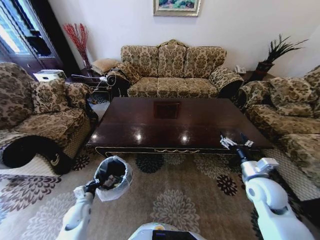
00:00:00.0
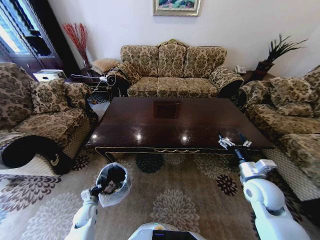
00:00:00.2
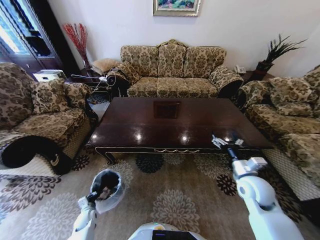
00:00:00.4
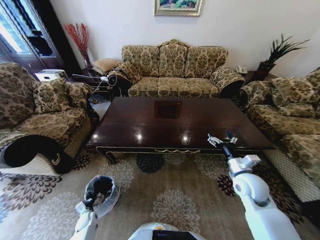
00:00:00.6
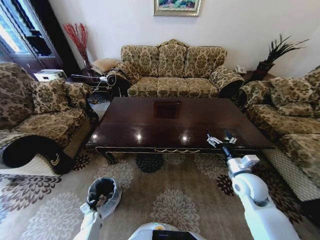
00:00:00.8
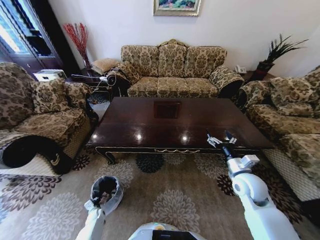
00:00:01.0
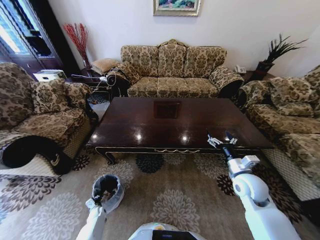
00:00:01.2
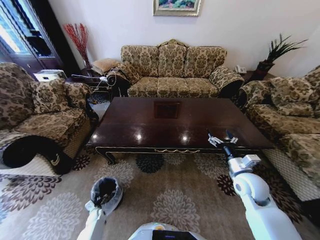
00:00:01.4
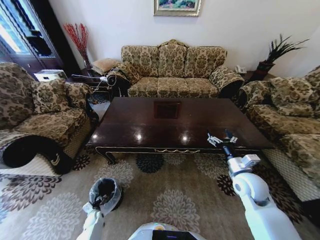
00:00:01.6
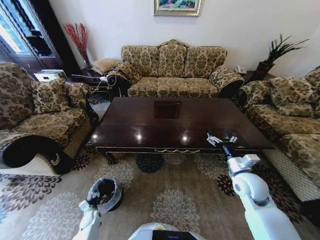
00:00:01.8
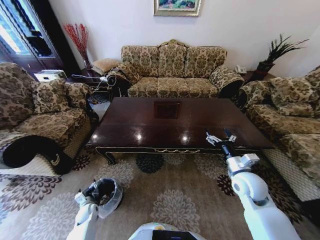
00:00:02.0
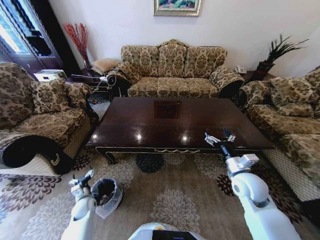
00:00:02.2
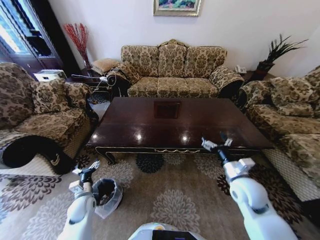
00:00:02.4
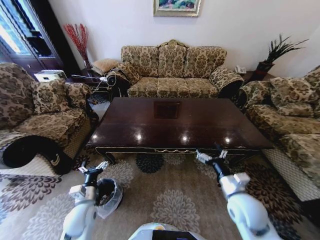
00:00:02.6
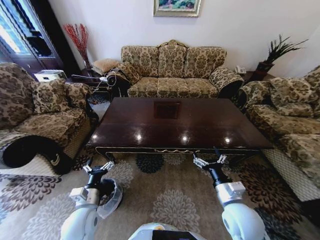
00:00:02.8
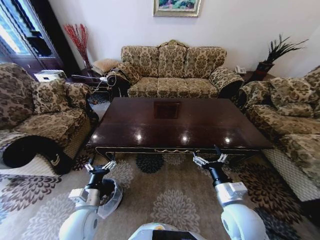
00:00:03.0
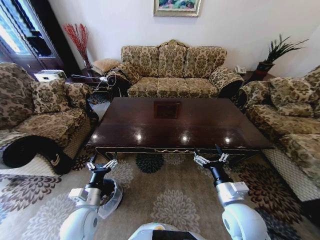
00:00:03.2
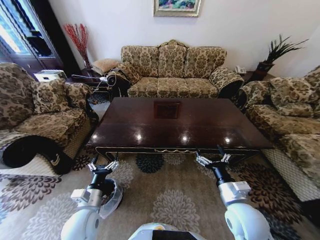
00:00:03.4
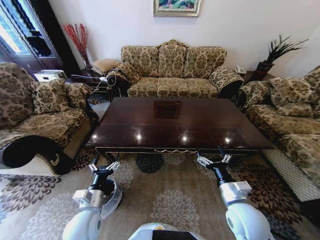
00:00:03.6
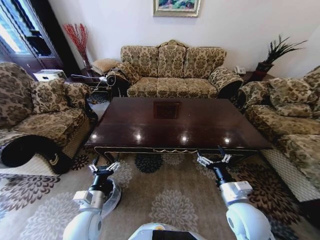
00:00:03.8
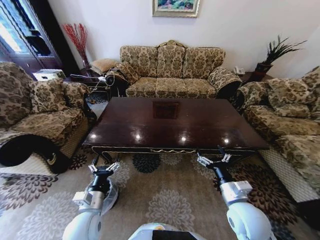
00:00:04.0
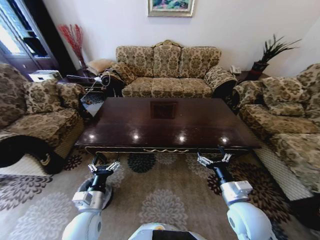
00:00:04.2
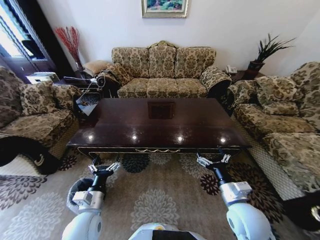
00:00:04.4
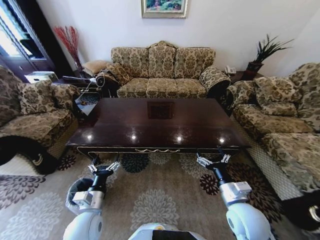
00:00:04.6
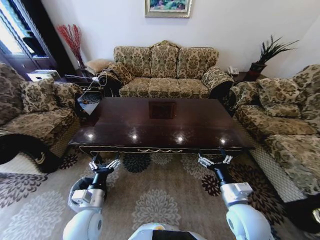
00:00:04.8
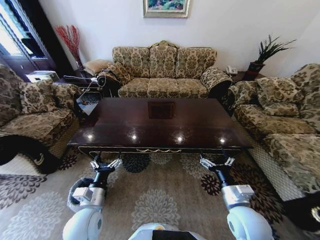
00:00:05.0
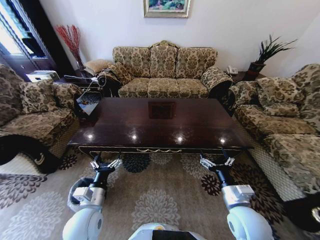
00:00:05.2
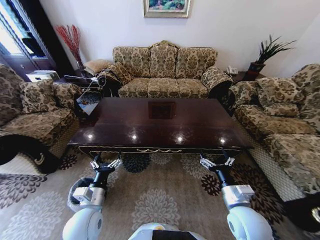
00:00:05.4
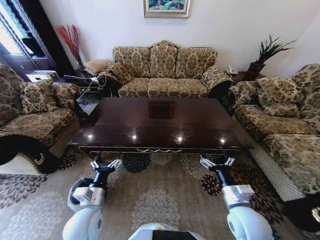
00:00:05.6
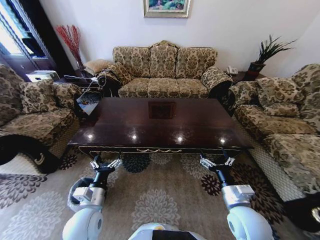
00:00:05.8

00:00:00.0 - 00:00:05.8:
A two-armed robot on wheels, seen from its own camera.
Task of the whole recording: Move to the front of the table and place the trash on the table into the trash bin.
00:00:00.0 - 00:00:01.4: The left gripper goes about 20 cm downward.
00:00:01.4 - 00:00:02.8: The right gripper travels backward and to the left by roughly 15 cm. Meanwhile the left gripper travels upward by about 35 cm, and opens its fingers.
00:00:04.4 - 00:00:05.8: Neither gripper changes place.
